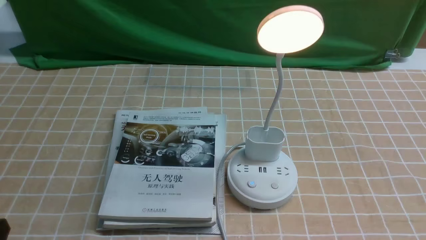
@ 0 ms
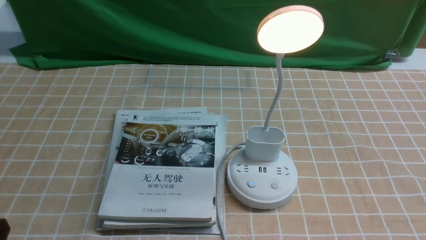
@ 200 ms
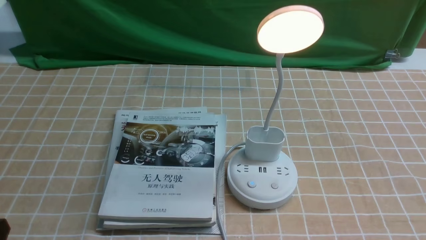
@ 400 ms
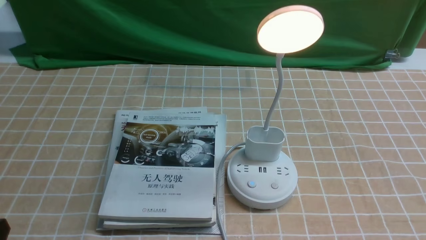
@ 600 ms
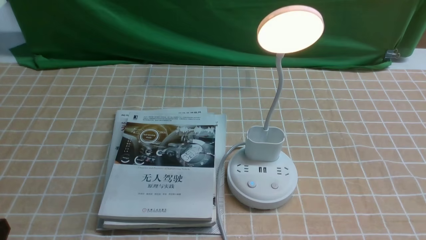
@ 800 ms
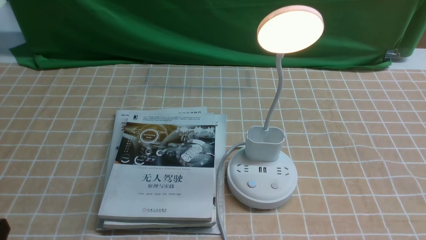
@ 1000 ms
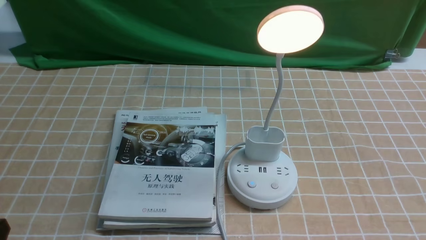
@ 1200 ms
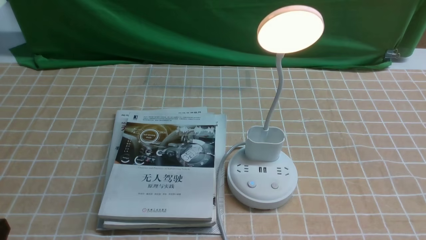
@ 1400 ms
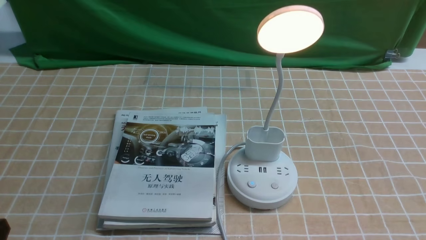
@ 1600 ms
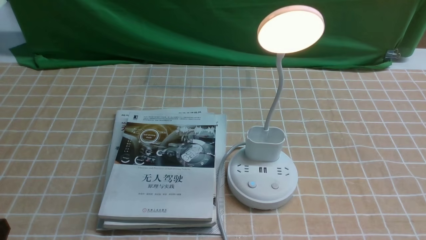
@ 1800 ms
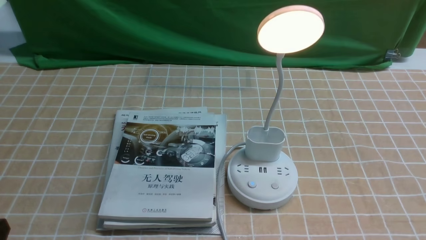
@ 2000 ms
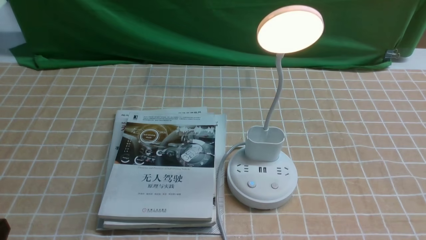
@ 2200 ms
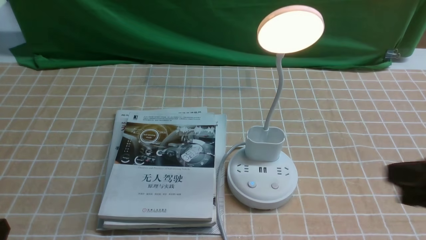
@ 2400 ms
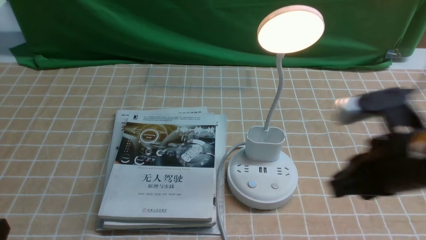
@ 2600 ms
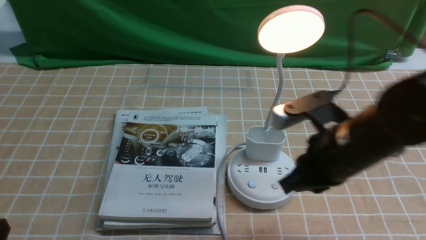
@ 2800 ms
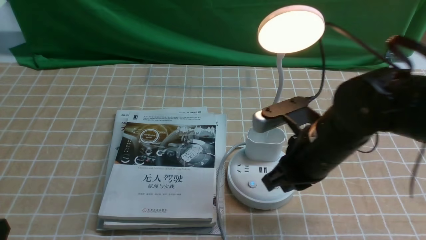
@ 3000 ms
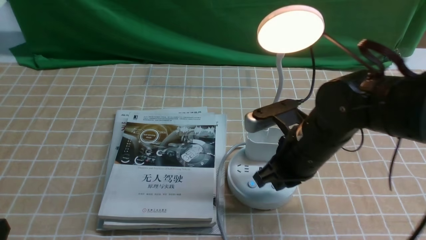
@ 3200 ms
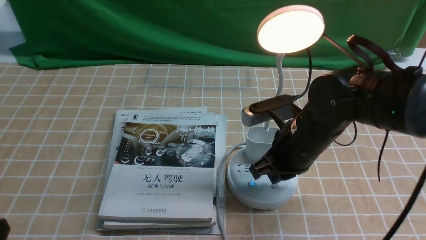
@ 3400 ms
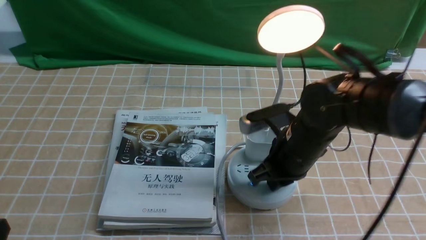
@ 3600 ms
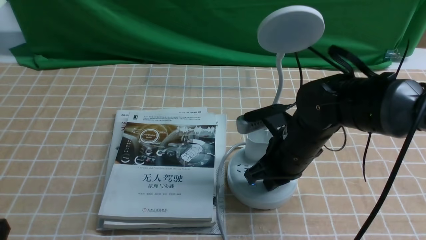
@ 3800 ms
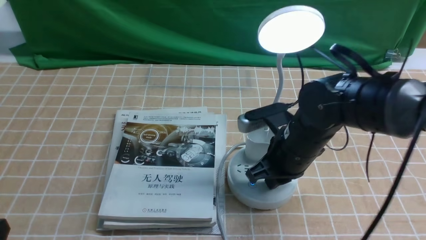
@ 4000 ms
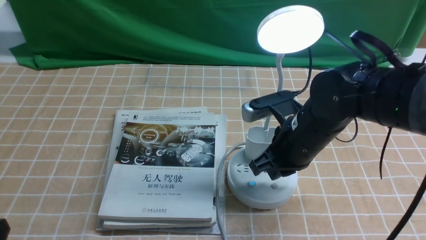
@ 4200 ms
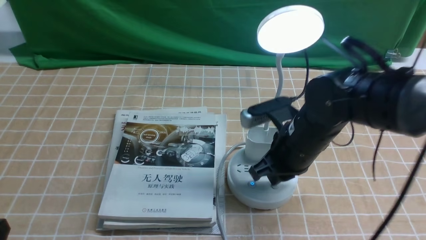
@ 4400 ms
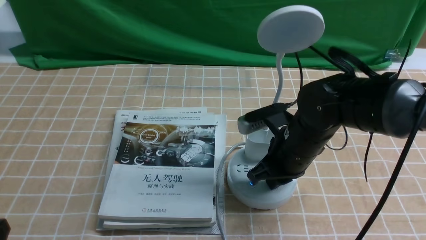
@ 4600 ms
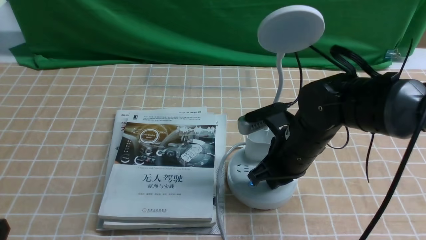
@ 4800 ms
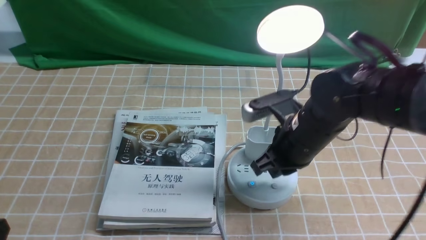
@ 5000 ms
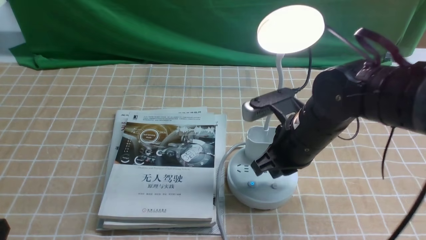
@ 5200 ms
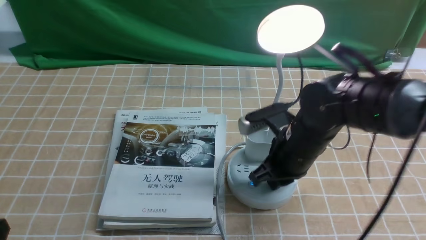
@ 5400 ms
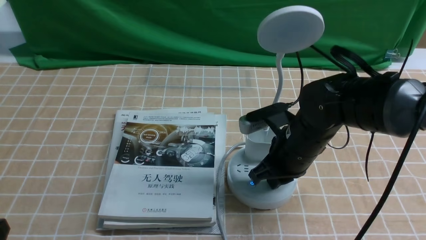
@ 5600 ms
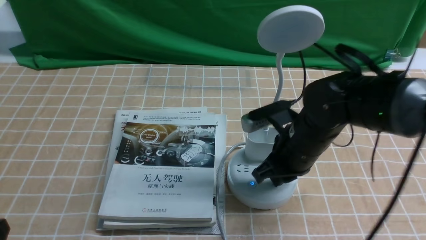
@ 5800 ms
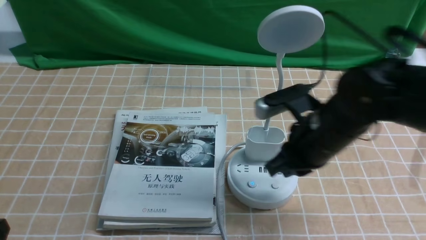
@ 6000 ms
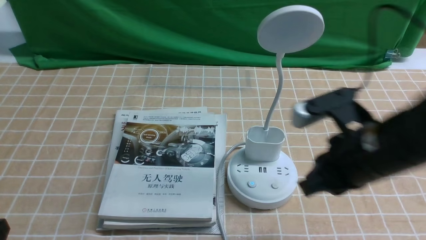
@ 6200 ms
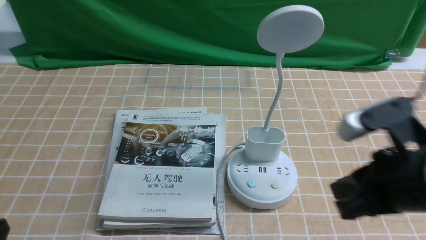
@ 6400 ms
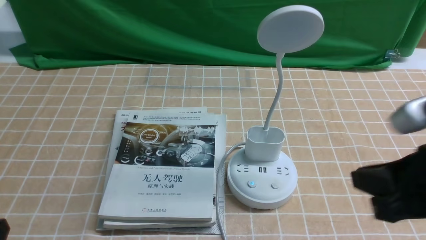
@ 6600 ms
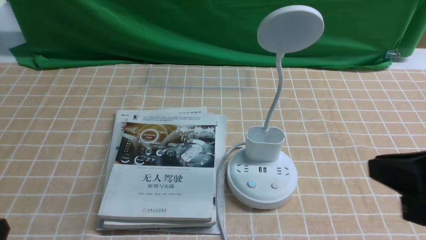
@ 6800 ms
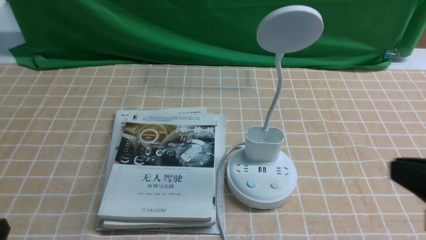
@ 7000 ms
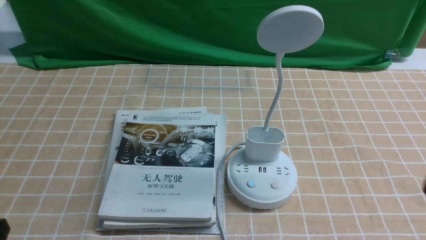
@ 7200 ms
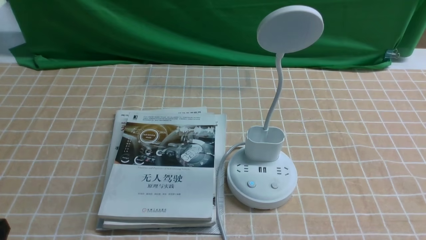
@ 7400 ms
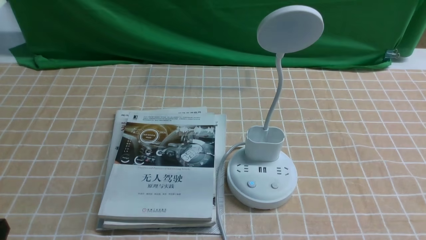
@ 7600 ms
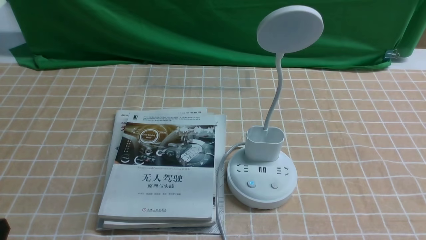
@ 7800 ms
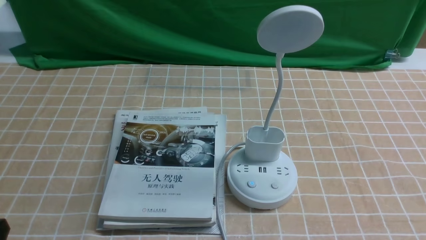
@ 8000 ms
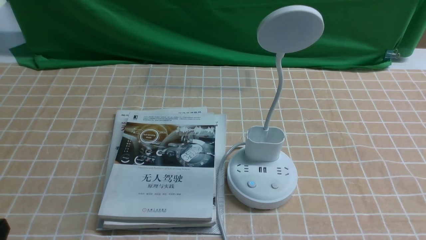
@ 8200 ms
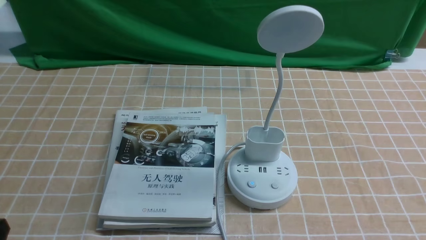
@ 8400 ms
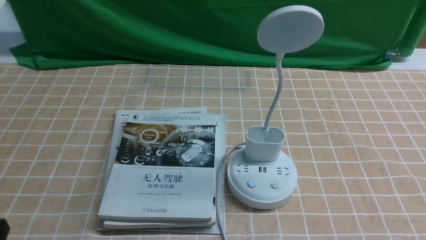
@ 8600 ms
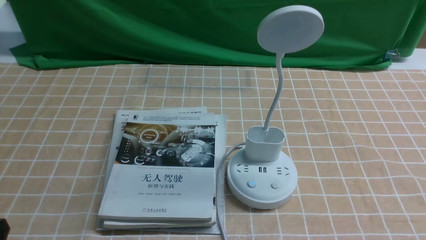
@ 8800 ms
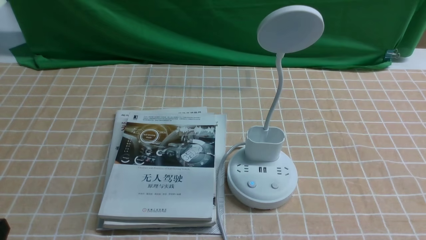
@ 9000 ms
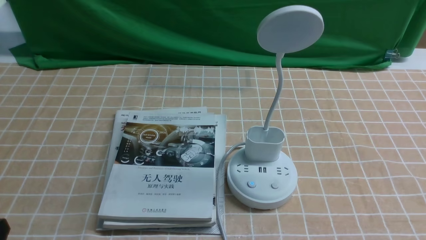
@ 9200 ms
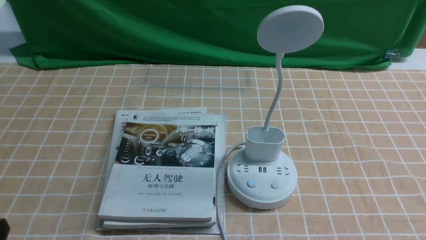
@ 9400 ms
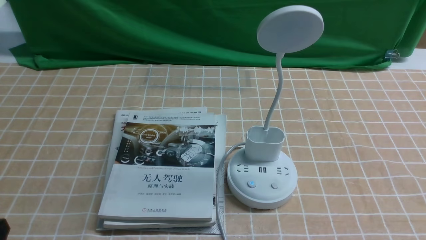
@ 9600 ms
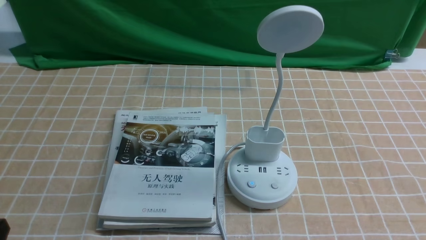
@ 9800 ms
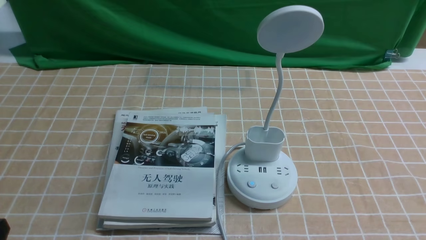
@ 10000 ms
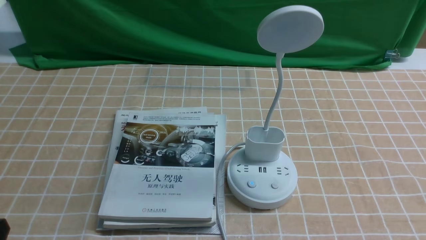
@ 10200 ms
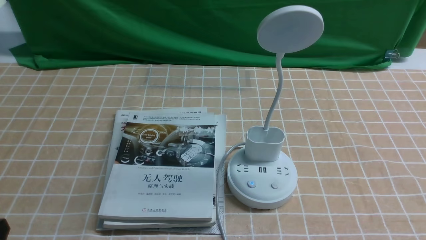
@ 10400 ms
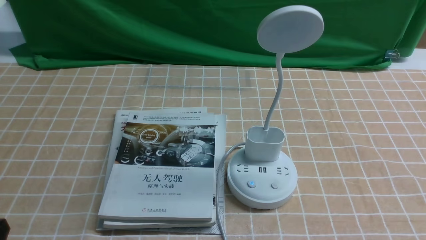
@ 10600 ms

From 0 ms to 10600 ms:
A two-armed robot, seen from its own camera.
Task of the whole recording: turn off the desk lamp on the light coffee tablecloth by hand.
Step, from 0 ms to 5800 ms: use the right arm to press the button switch on the lamp holder.
From 1600 ms to 3000 ms: The right gripper shifts roughly 30 cm forward and to the left, and closes up.
From 3000 ms to 4600 ms: The right gripper ends up about 5 cm from where it was.
From 4600 ms to 6000 ms: The right gripper moves upward, approximately 5 cm.
From 6000 ms to 7600 ms: The right gripper goes about 25 cm backward and to the right.
From 7600 ms to 9000 ms: Both grippers stay about where they are.
